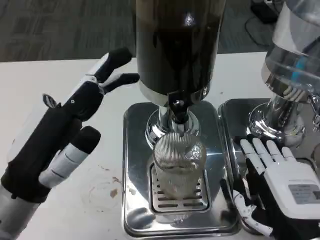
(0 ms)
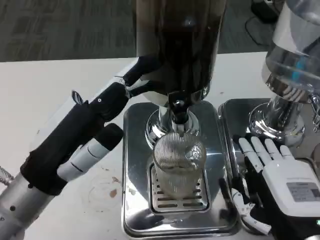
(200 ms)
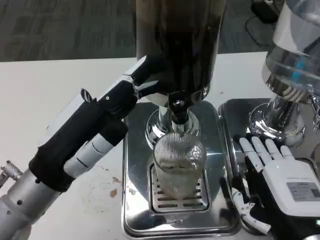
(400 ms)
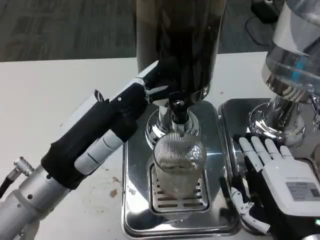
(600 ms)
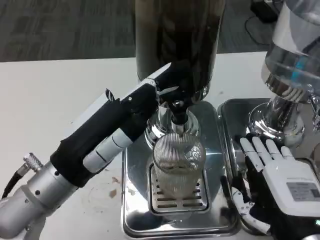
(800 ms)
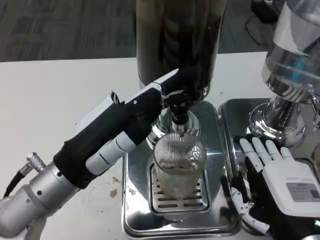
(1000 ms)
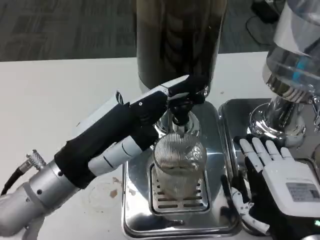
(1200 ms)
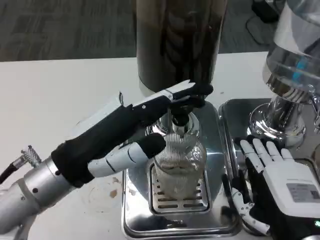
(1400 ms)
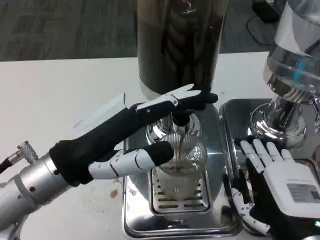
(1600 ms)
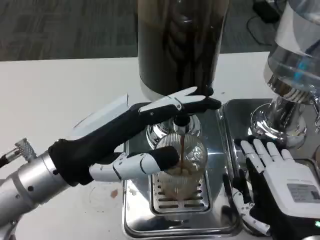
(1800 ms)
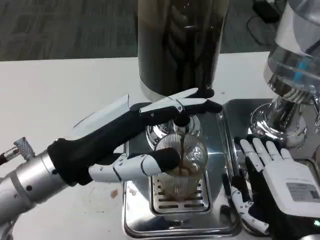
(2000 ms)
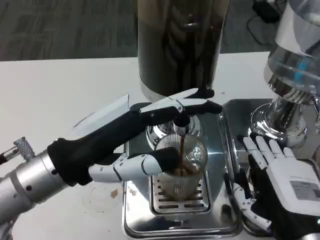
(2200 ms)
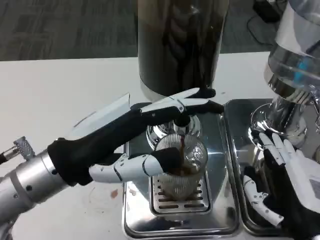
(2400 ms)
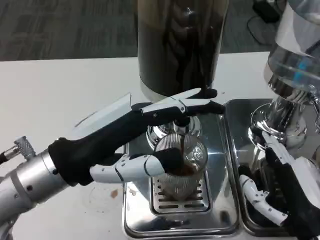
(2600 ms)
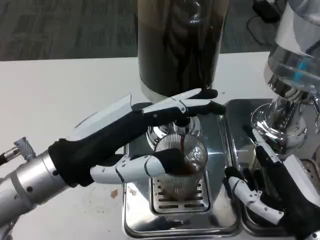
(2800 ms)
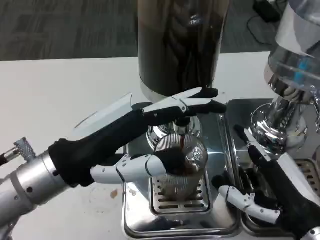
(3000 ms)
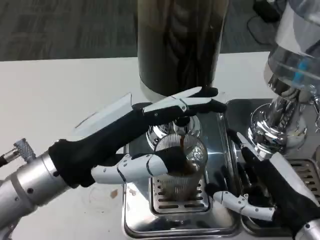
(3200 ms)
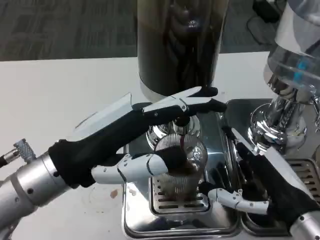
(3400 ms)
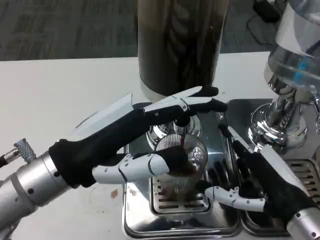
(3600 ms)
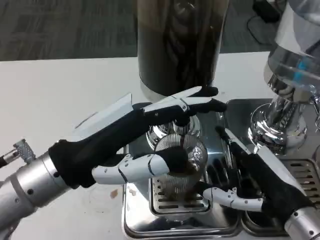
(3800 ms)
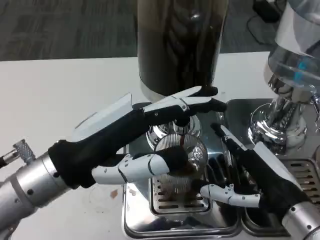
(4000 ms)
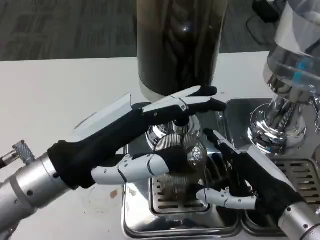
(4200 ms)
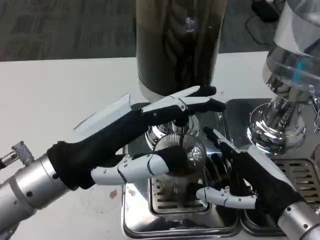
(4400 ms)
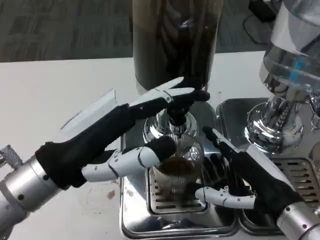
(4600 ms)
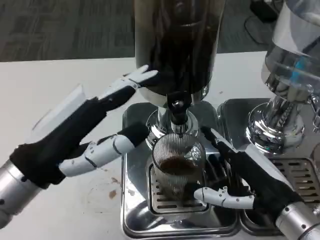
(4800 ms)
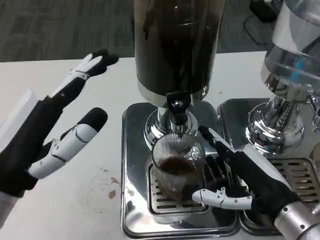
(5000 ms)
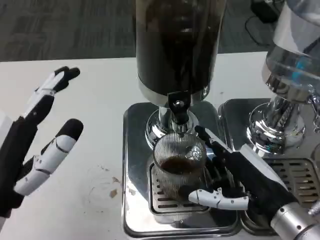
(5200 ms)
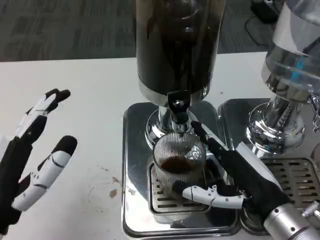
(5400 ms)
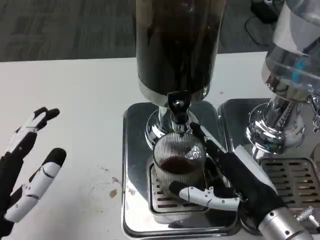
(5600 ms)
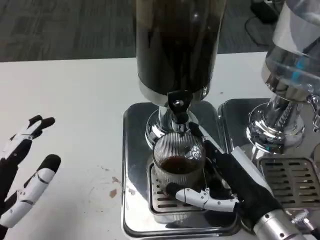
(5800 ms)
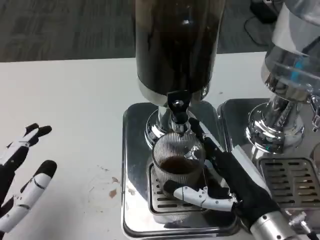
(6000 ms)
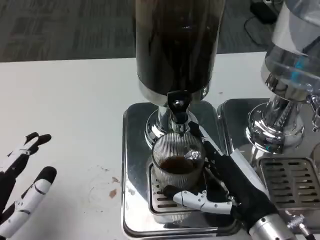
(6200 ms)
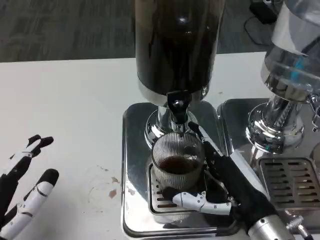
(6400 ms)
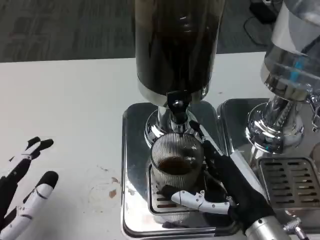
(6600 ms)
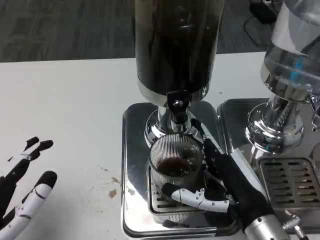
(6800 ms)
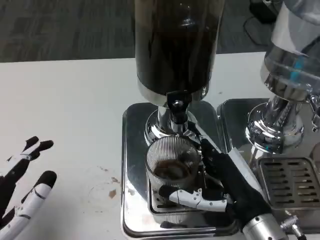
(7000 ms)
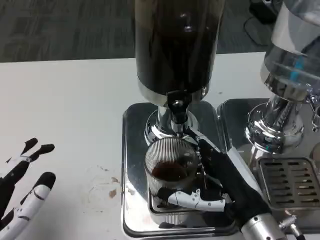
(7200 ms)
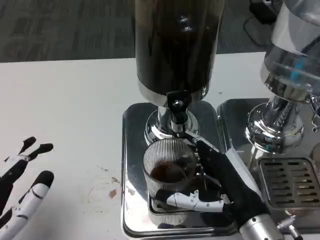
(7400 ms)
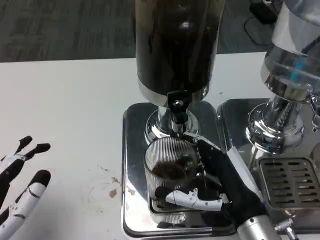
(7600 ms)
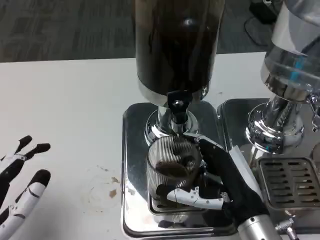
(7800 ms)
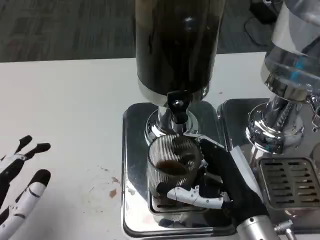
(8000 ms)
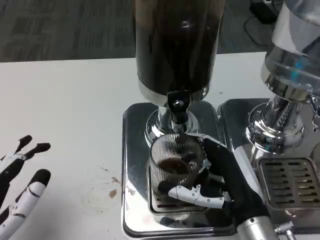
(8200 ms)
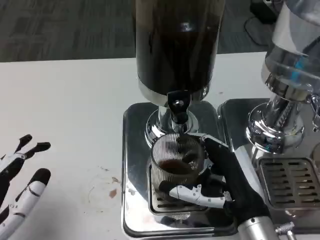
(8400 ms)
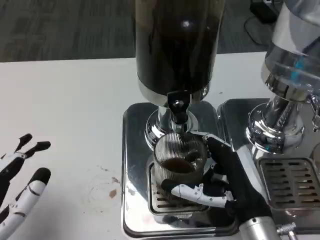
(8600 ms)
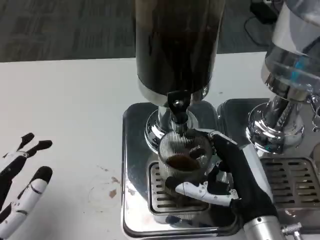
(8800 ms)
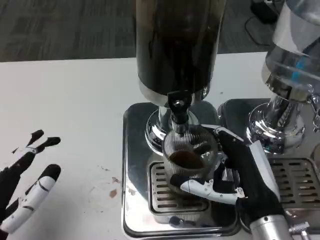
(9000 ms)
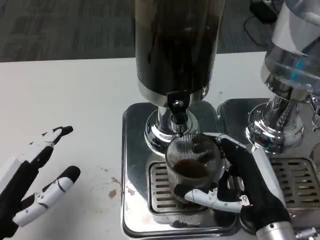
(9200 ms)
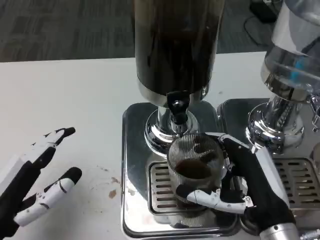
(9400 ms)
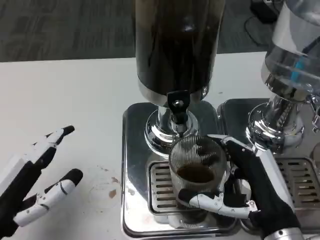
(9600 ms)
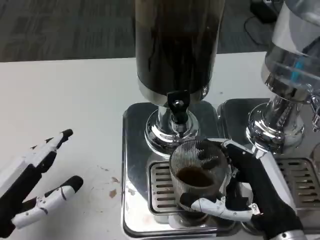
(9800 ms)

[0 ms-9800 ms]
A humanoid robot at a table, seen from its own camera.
Task of the whole recording: Grasp the cup under the faucet to collect the drink, then remove the cup.
2800 ms to 4200 ms: The hands make only small movements.
4200 ms to 5600 ms: The left hand moves backward, downward and to the left, roughly 15 cm.
7000 ms to 8400 ms: The hands stay close to where they were, moving slightly.

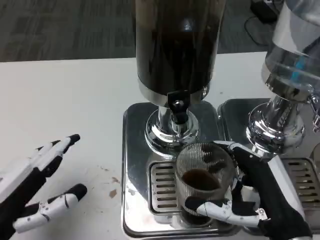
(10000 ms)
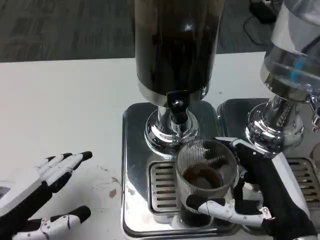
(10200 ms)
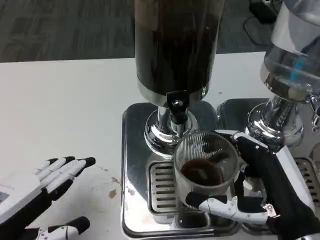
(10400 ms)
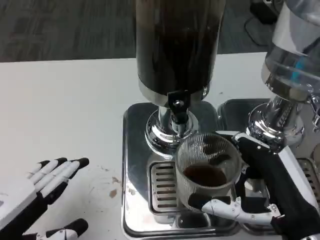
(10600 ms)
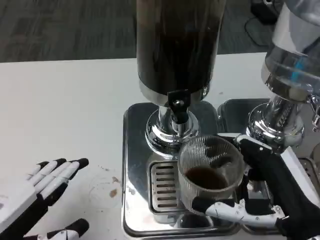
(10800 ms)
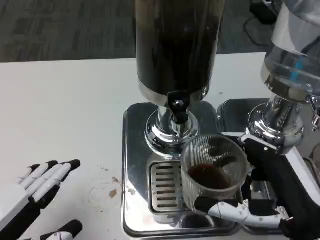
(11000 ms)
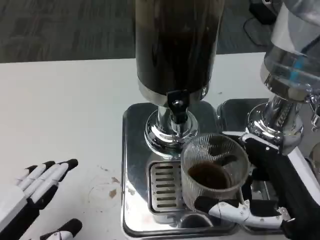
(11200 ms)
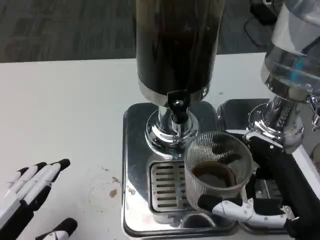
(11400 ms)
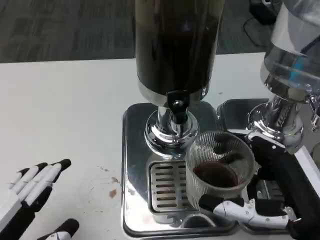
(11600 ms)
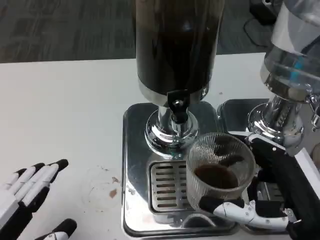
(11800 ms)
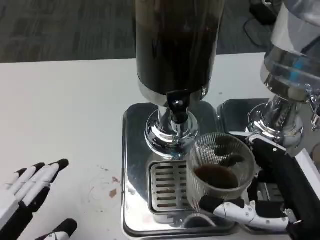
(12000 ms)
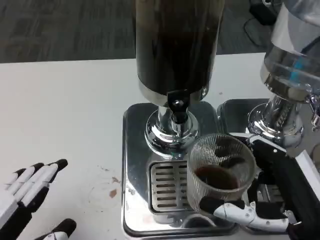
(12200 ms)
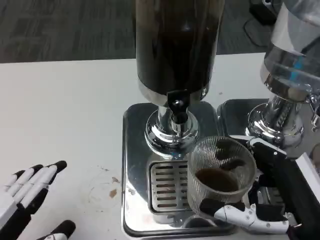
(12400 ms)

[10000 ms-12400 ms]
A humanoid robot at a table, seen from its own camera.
Task of the whole recording: Grasp the cup under the faucet to collect the drink, then remove the cup.
10000 ms to 11200 ms: The left hand is displaced backward by about 5 cm.
11200 ms to 12400 ms: There are only small adjustments of the hands.

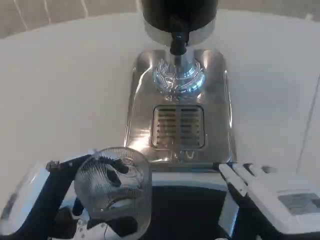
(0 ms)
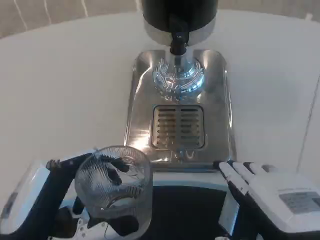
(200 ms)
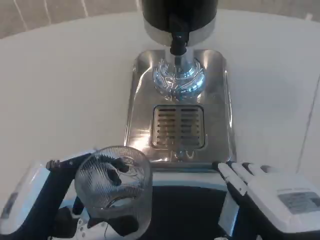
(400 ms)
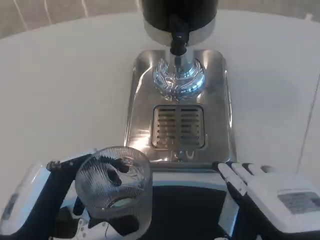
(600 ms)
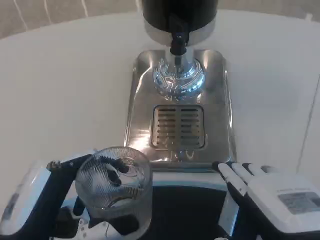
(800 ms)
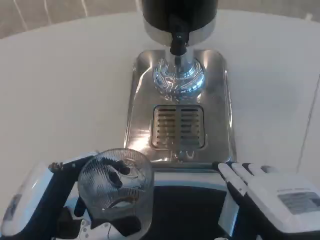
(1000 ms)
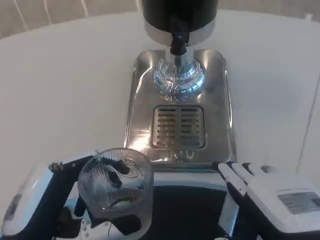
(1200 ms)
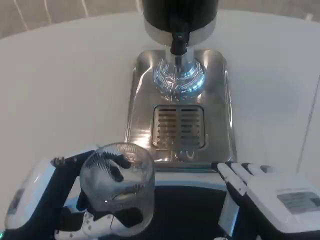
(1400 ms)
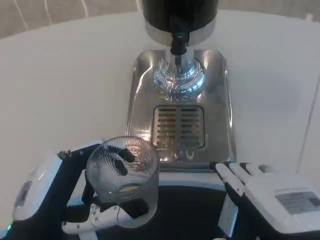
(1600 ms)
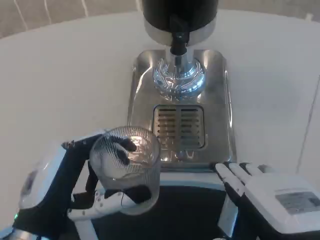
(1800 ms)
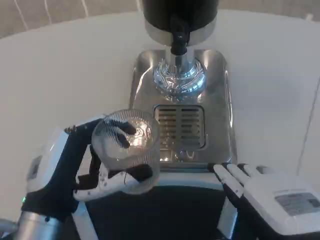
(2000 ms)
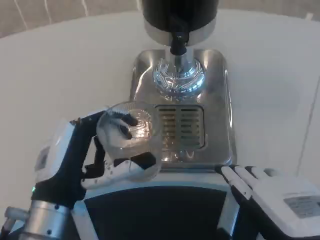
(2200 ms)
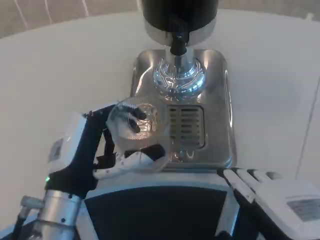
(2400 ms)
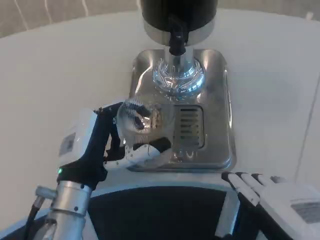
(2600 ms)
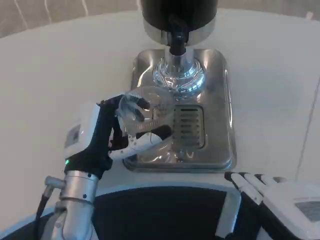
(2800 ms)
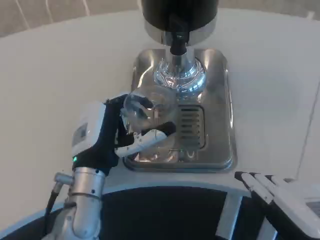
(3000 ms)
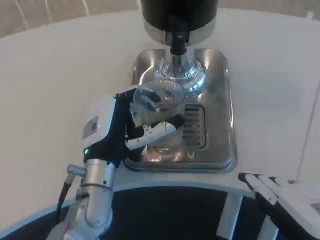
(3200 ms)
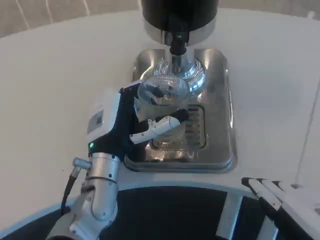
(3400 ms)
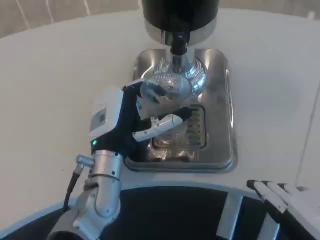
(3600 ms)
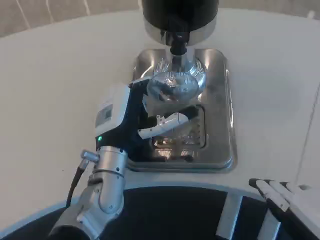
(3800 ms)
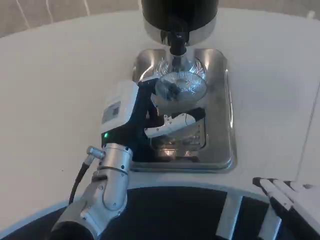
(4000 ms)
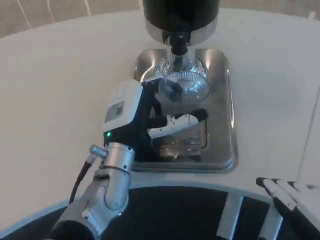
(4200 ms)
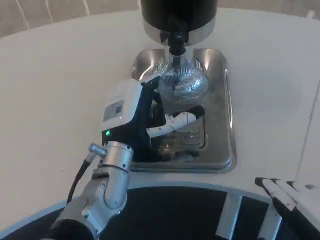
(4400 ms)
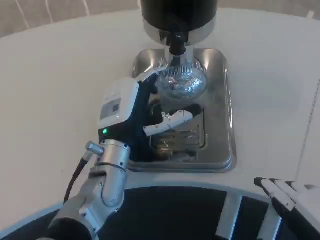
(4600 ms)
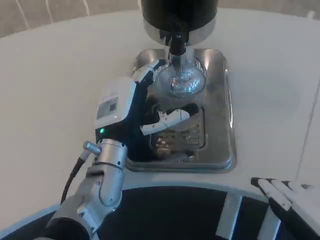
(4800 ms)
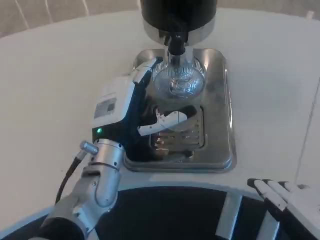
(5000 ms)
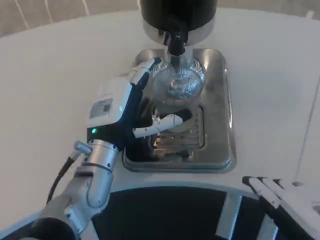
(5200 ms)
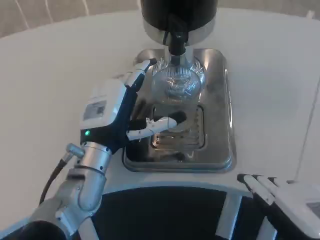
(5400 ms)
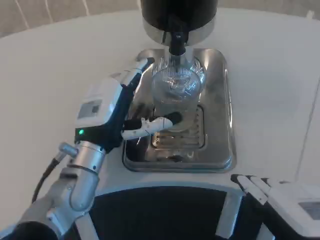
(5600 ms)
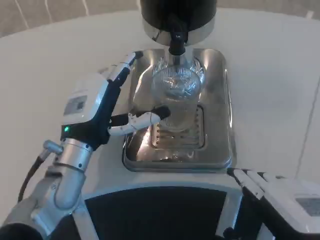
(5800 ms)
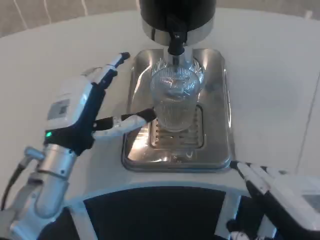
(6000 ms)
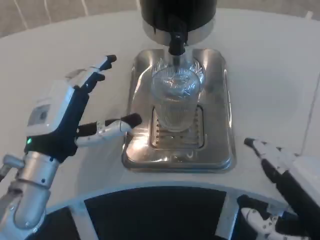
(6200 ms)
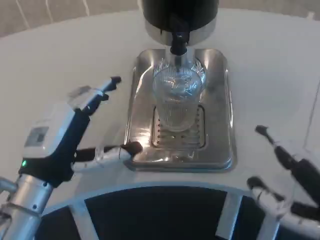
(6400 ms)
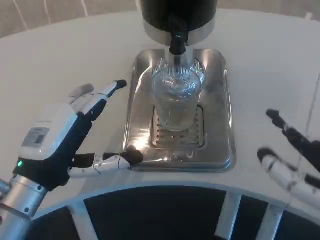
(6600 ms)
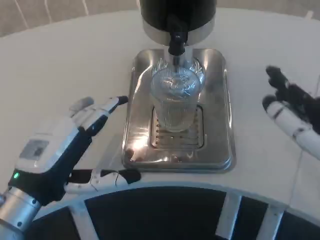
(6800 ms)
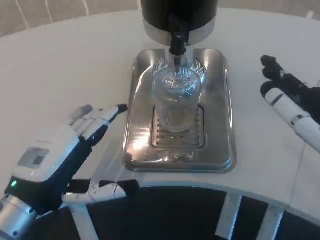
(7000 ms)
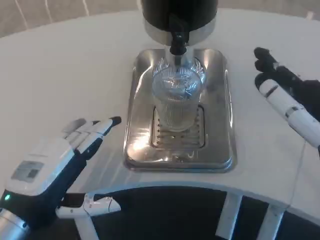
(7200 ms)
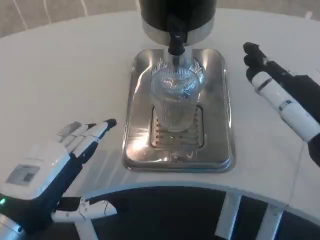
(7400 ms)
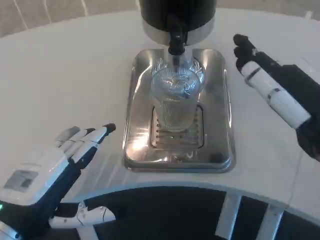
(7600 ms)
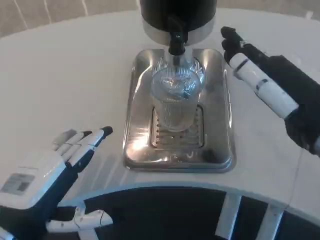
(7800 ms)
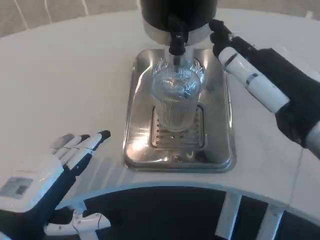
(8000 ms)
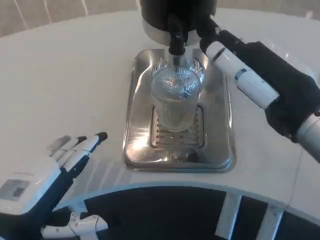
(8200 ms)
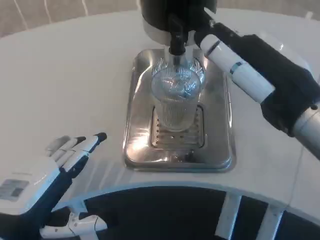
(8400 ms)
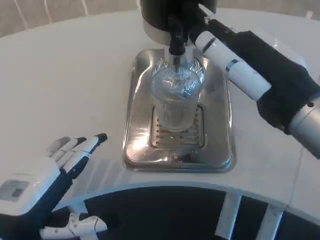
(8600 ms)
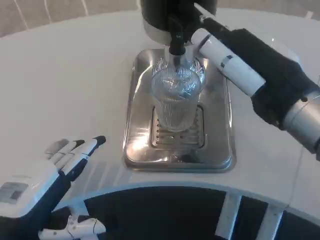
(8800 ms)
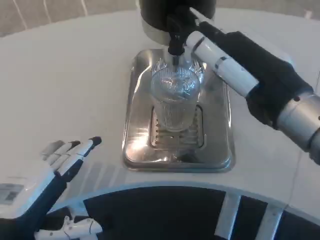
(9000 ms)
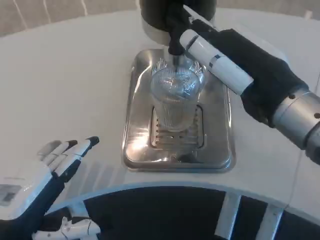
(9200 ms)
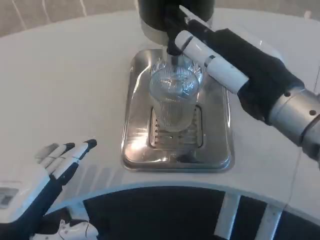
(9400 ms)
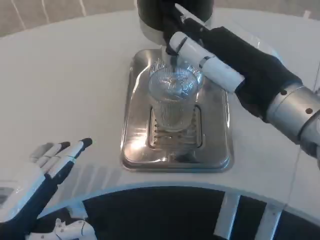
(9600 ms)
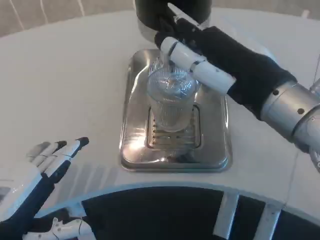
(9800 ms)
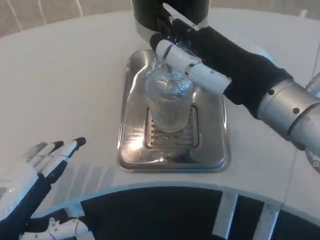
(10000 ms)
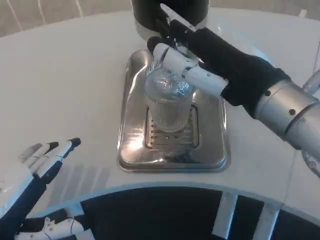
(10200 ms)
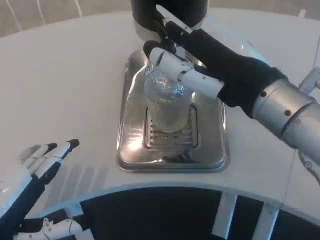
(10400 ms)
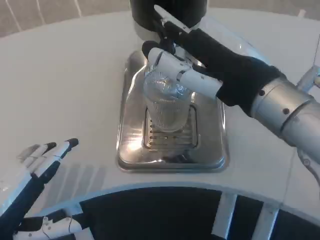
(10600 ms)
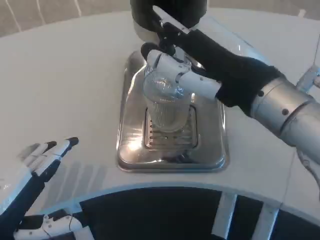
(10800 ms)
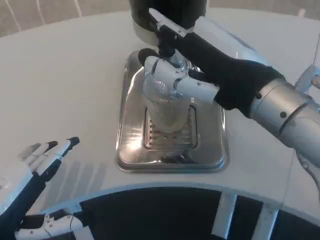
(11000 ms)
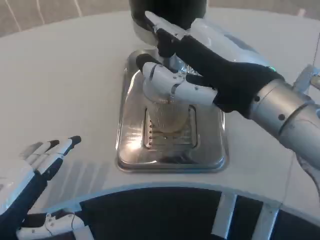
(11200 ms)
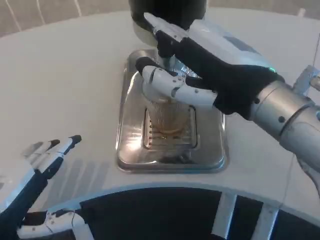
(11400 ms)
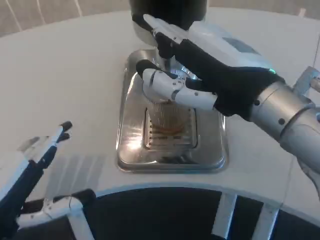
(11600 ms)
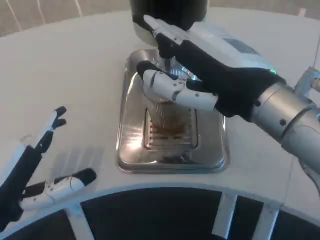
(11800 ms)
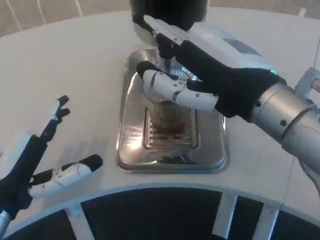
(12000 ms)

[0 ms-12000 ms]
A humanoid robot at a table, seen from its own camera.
Task of the whole recording: Grasp the cup under the faucet to collect the drink, then remove the cup.
0 ms to 1600 ms: The hands stay close to where they were, moving slightly.
1600 ms to 3000 ms: The left hand is displaced forward and to the right by about 15 cm.
3000 ms to 4400 ms: The left hand ends up some 5 cm from where it was.
4400 ms to 6000 ms: The left hand moves to the left, roughly 10 cm.
6000 ms to 7600 ms: The right hand travels forward and upward by about 10 cm. The left hand heads backward and to the left, covering approximately 15 cm.
7600 ms to 9000 ms: The right hand ends up roughly 5 cm from where it was.
10400 ms to 12000 ms: The left hand moves some 5 cm.
